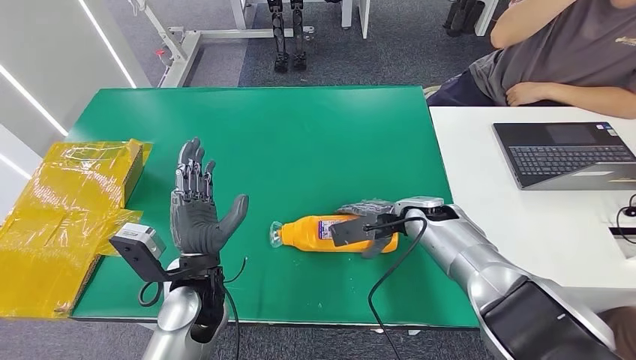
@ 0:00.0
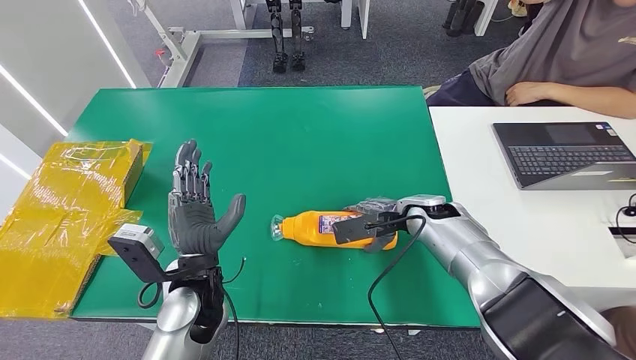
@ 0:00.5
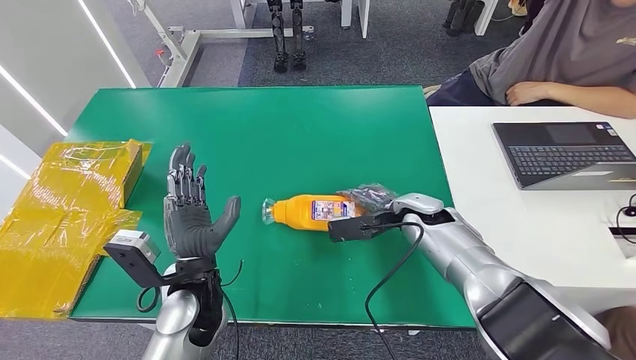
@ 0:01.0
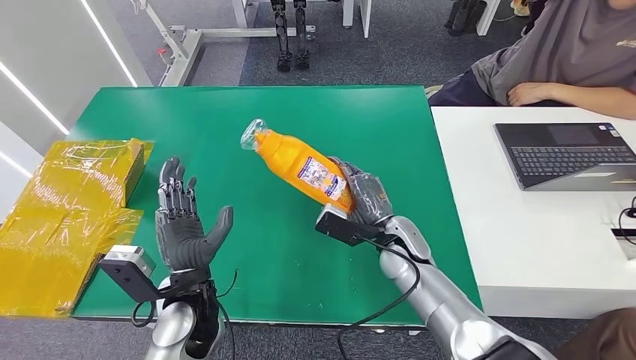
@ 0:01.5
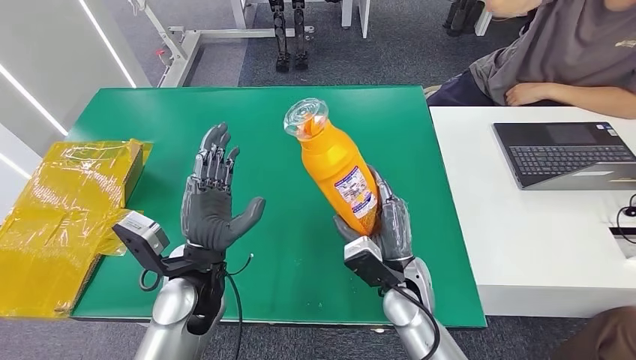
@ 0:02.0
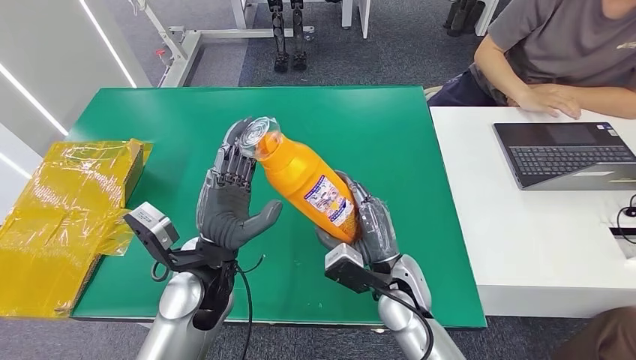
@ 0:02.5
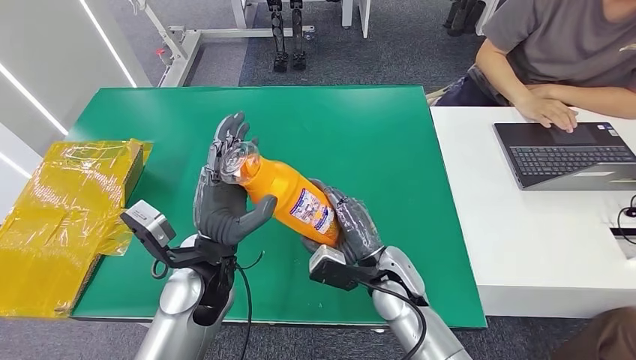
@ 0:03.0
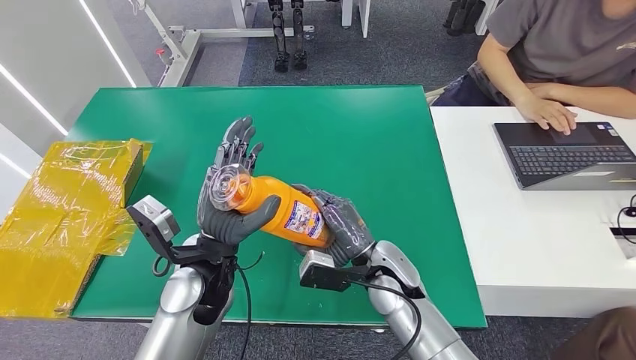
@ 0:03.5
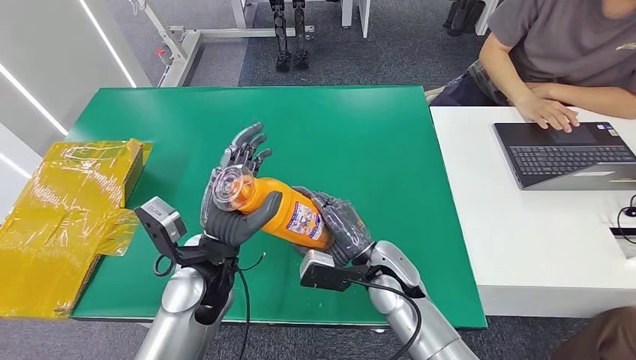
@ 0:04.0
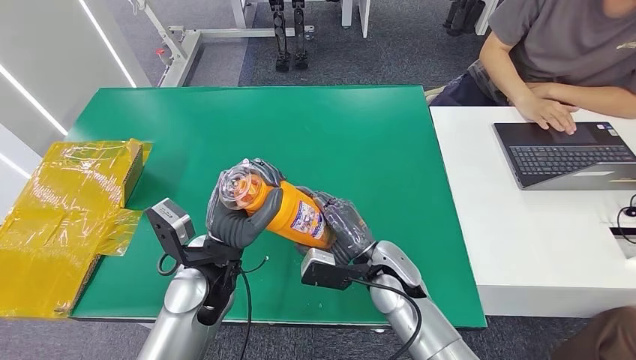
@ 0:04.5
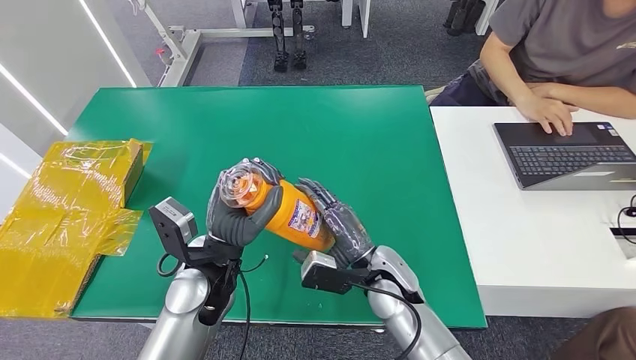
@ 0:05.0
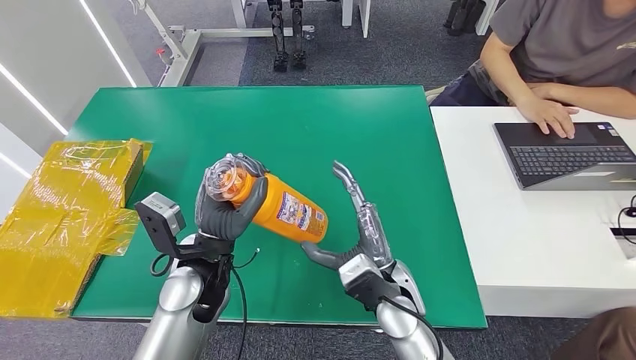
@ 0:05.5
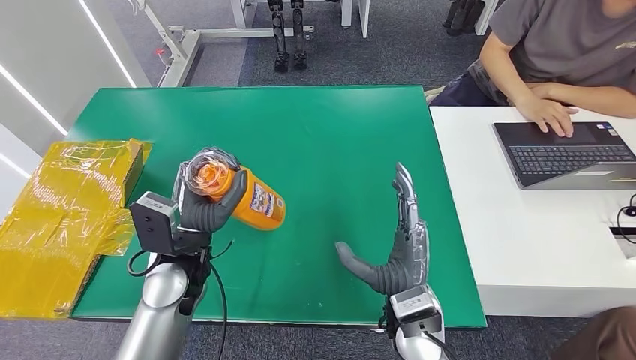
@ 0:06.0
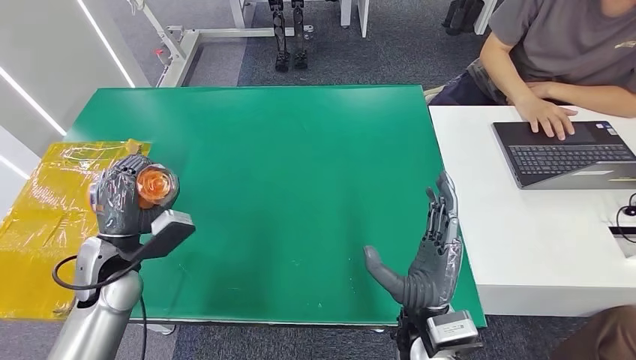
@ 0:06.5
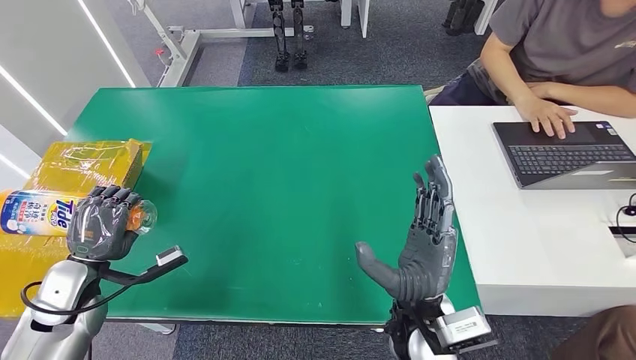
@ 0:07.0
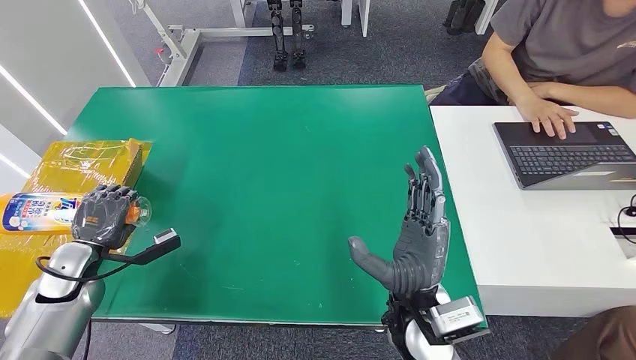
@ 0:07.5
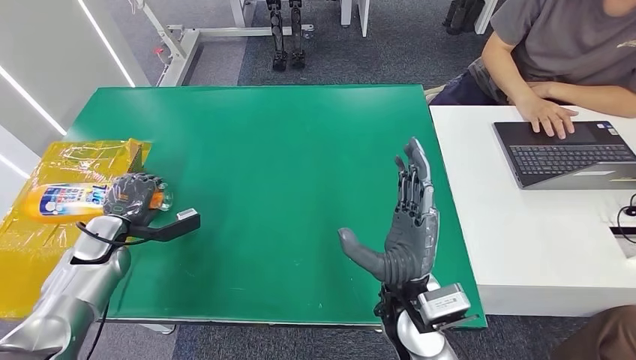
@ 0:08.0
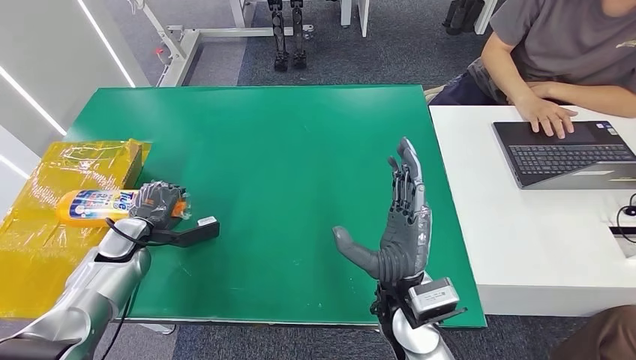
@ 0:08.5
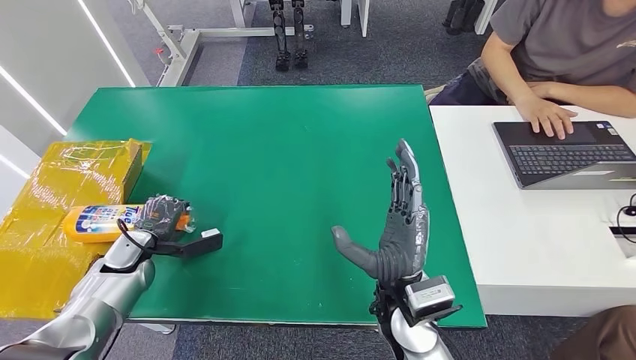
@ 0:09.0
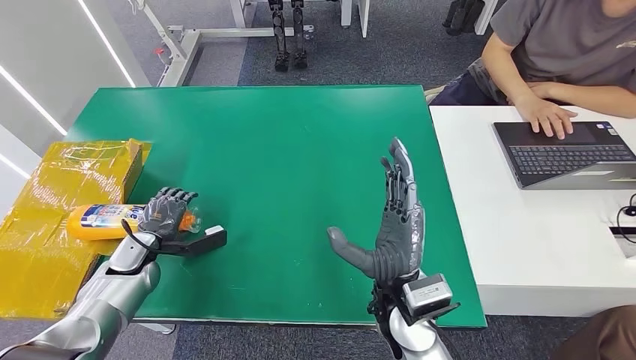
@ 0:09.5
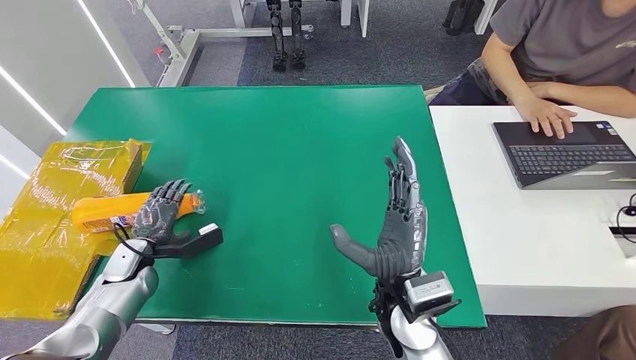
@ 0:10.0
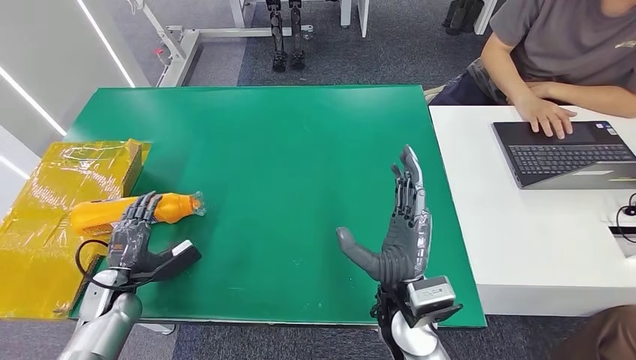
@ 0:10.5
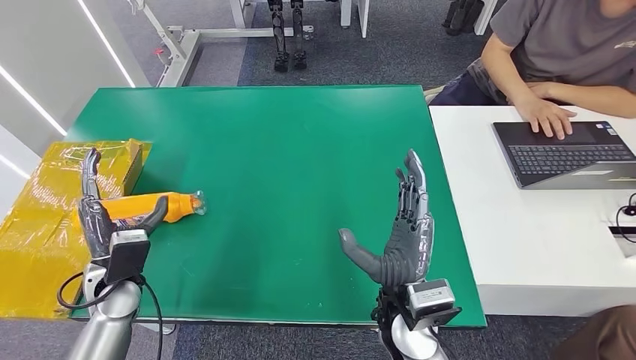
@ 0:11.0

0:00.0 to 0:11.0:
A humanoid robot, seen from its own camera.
Step, 0:00.0 to 0:03.0: Pick up the bottle from the table.
Step, 0:04.0 to 0:11.0: Turn the bottle to the front side.
0:00.0 to 0:02.0: The right hand shifts some 15 cm backward and to the left.
0:05.5 to 0:07.5: The left hand moves to the left, some 30 cm; the right hand ends up about 5 cm from where it was.
0:07.5 to 0:09.0: The left hand goes approximately 5 cm to the right.
0:09.0 to 0:11.0: The left hand moves backward and upward, some 10 cm.
